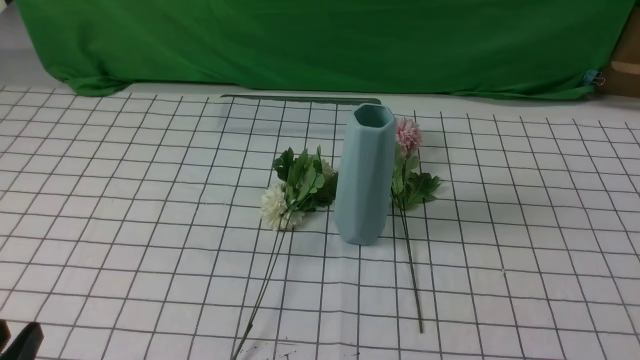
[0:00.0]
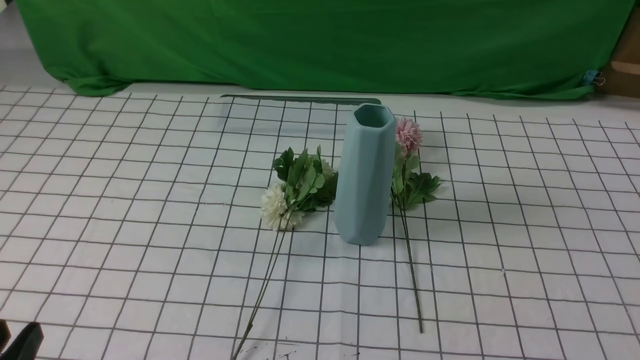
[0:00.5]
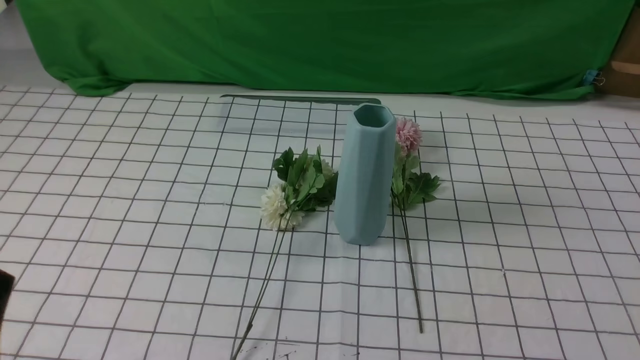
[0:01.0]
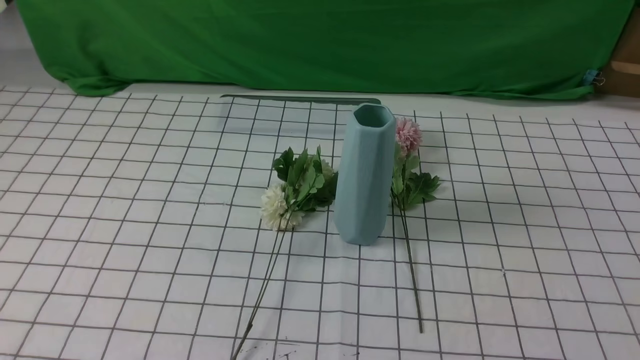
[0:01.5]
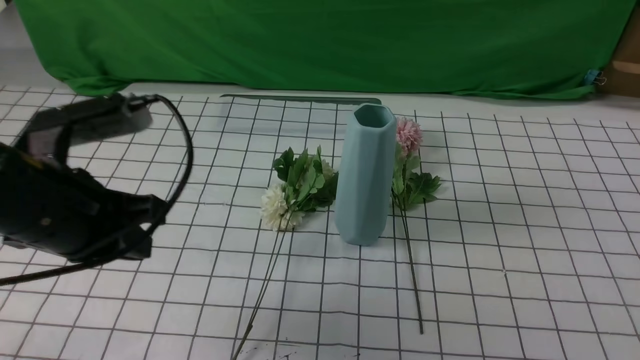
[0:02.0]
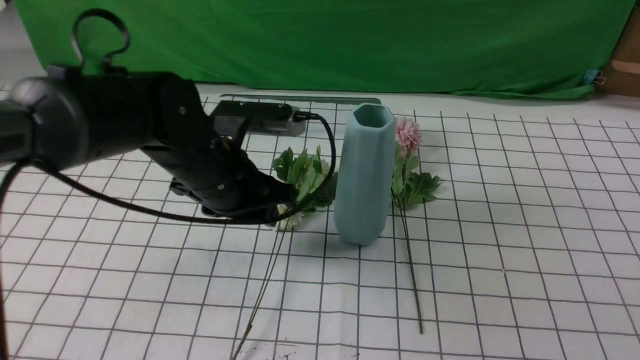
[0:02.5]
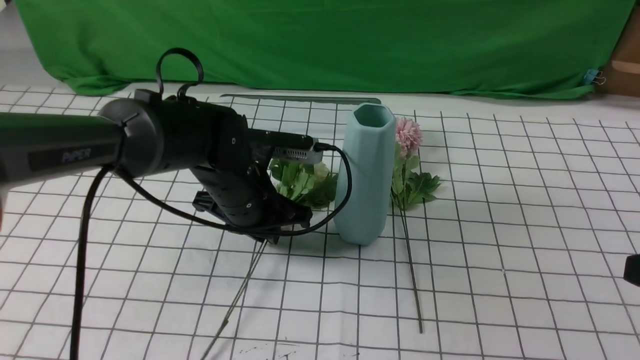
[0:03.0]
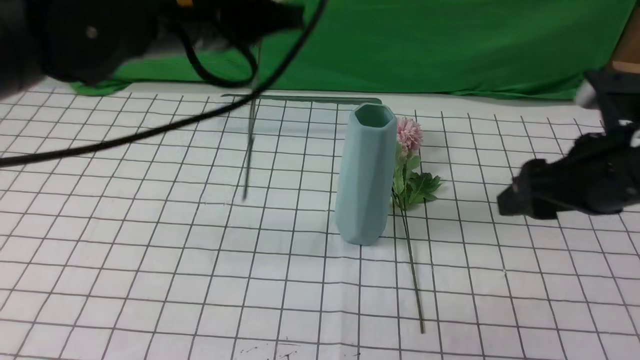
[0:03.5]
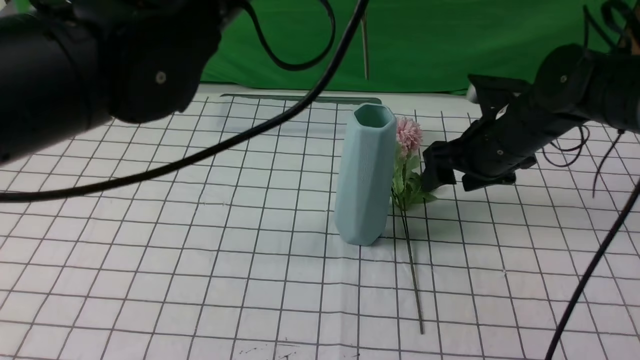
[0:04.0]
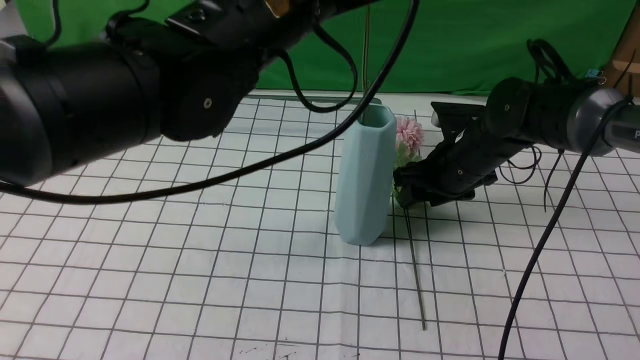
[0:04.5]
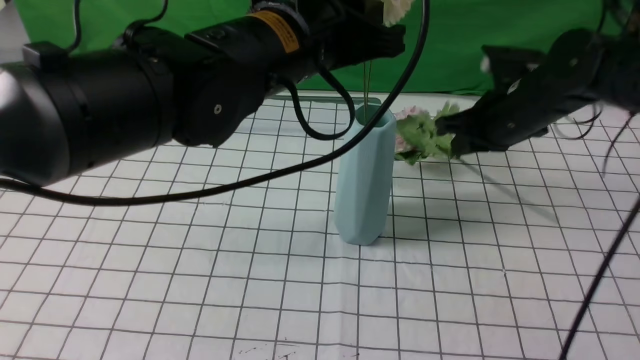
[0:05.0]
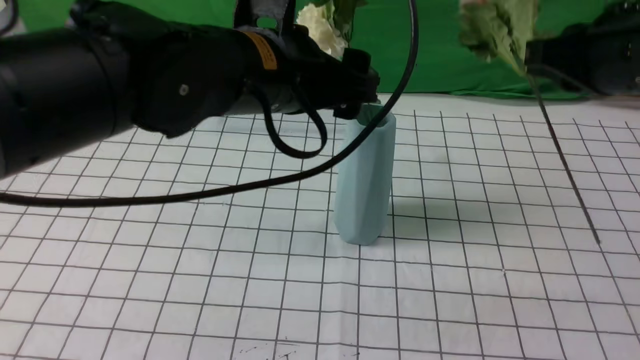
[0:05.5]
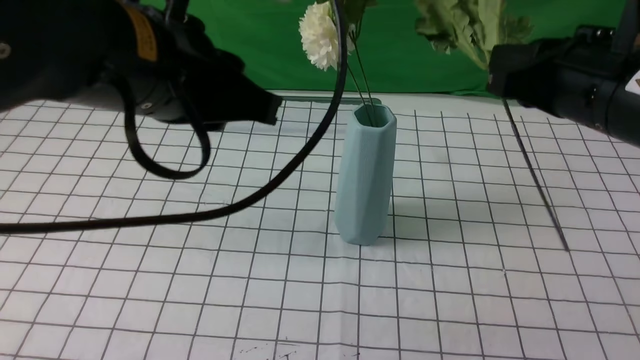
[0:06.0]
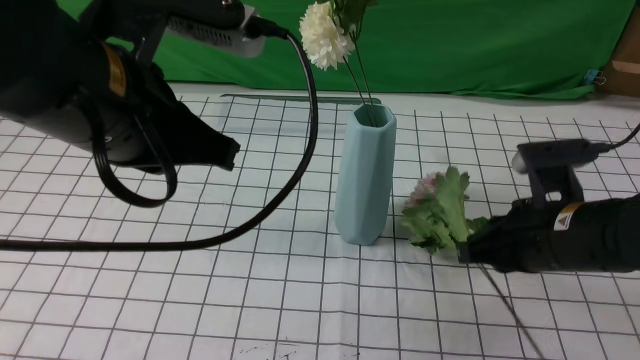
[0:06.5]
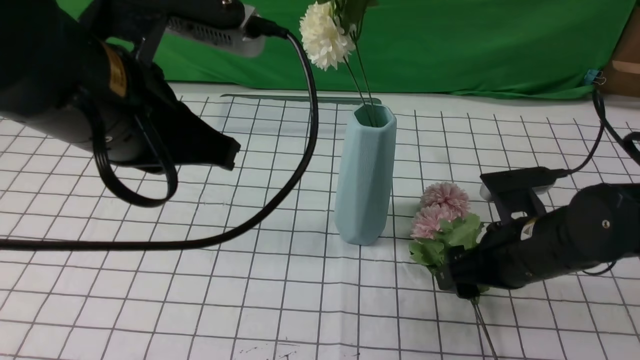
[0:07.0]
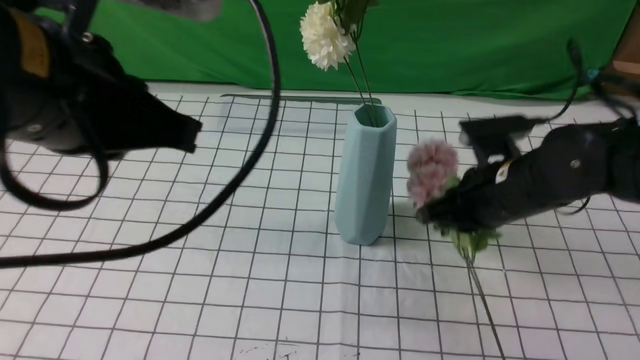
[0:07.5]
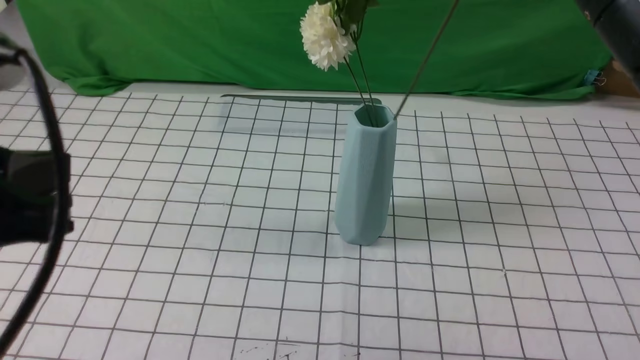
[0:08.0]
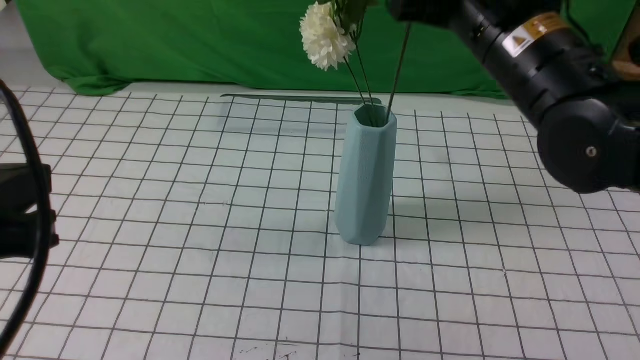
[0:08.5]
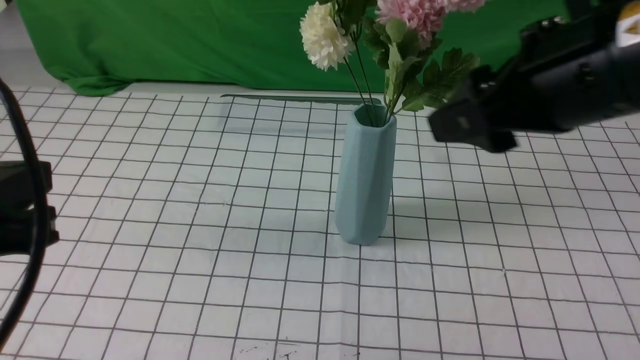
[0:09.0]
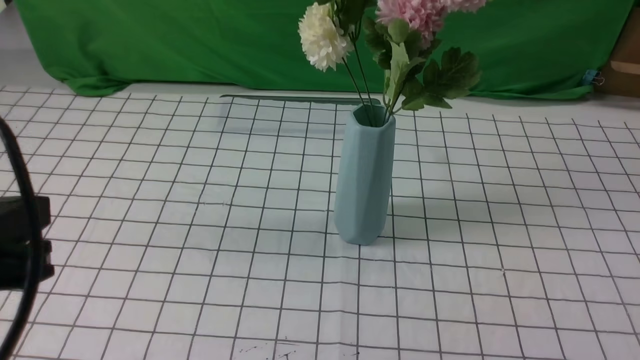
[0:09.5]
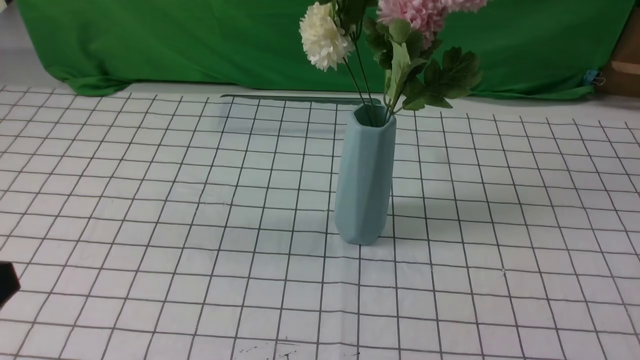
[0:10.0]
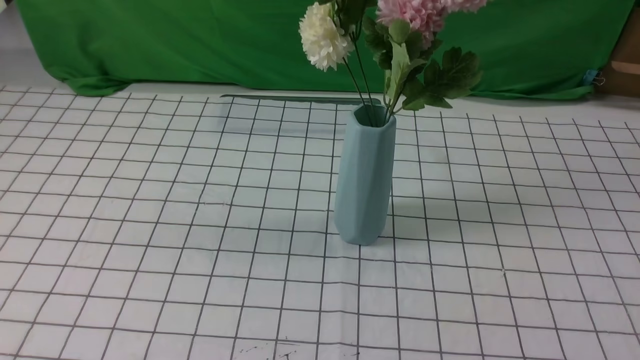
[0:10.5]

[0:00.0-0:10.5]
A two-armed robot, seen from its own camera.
Task of the whole recording: insert the flowers into the vase on the table with the white tablecloth.
Step, 0:00.0 to 0:09.0: Put the flowers in the vase with both hands.
0:00.0 to 0:02.0: The left gripper is displaced forward and upward by approximately 20 cm, and closes its fingers.
0:02.0 to 0:04.0: The left gripper is displaced to the right and upward by roughly 20 cm, and opens, then closes again. Meanwhile the right gripper heads forward, covering some 35 cm, and opens up.
0:04.0 to 0:06.5: The left gripper is displaced backward, to the left and downward by about 10 cm, and opens, then closes again; the right gripper swings up and down, some 20 cm each way, with 2 reversals, and closes up.
0:06.5 to 0:08.5: The right gripper moves up and down over some 25 cm, changing direction 2 times, and opens its fingers. Meanwhile the left gripper heads backward and to the left, covering roughly 15 cm.
0:08.5 to 0:10.5: The right gripper shifts approximately 35 cm backward and to the right, while the left gripper shifts some 10 cm backward and downward.
